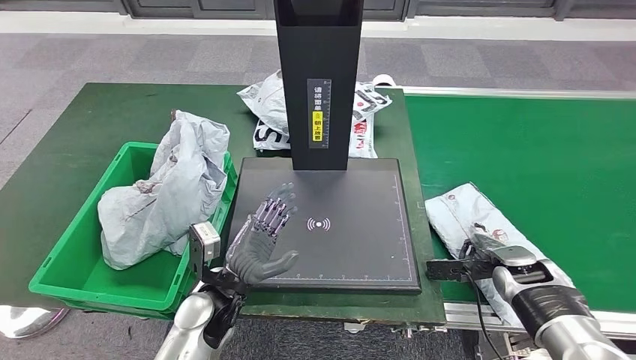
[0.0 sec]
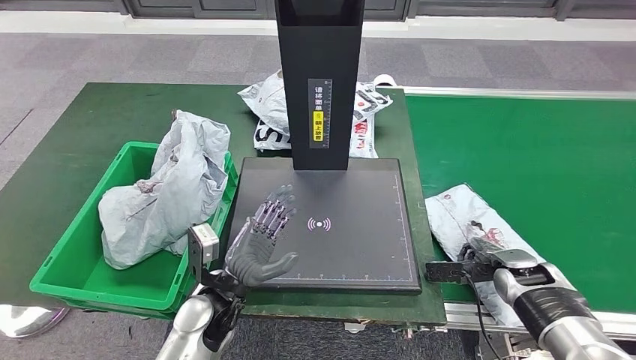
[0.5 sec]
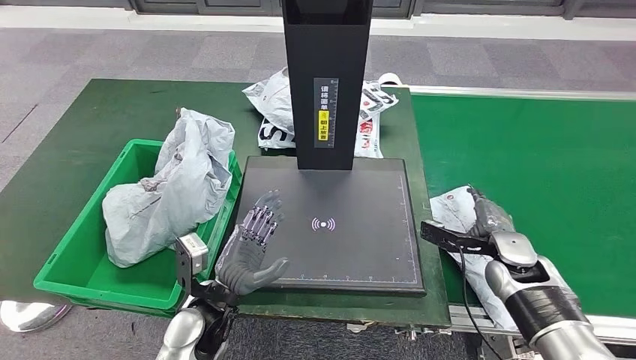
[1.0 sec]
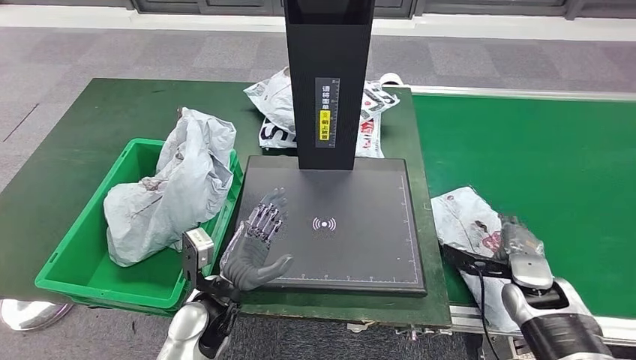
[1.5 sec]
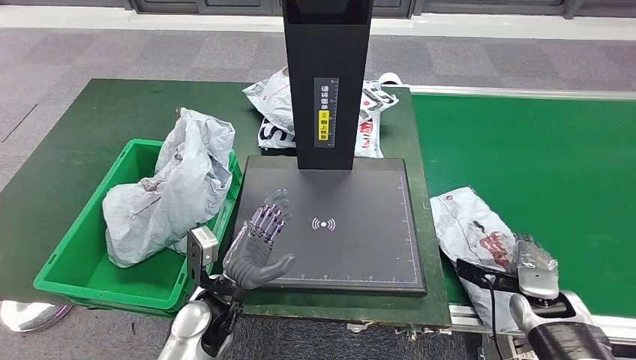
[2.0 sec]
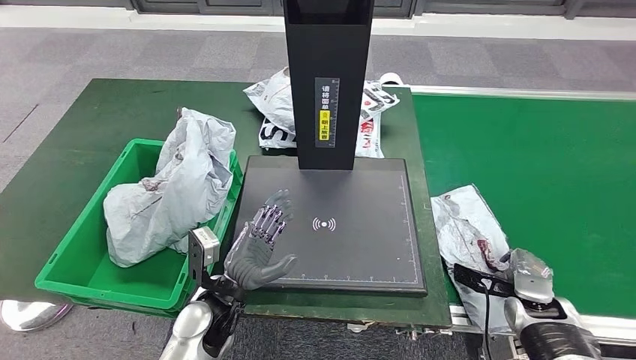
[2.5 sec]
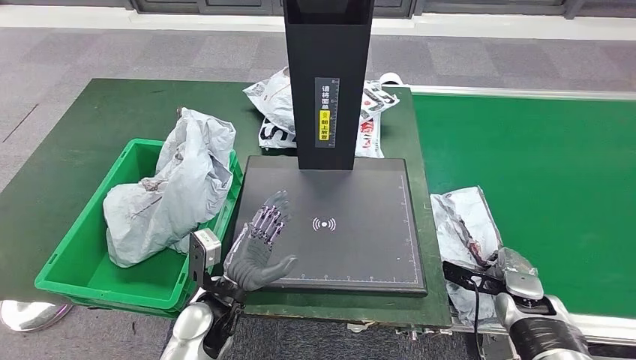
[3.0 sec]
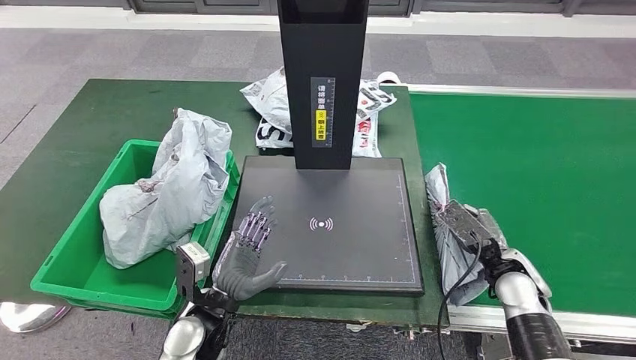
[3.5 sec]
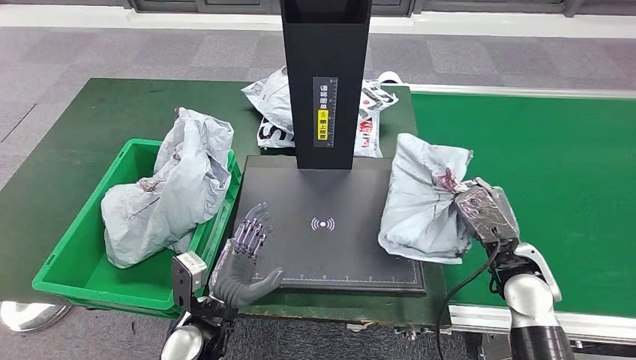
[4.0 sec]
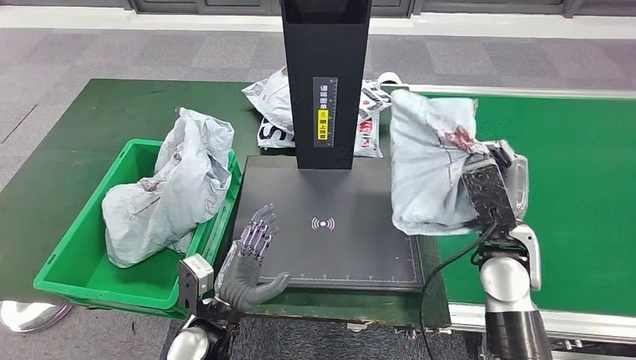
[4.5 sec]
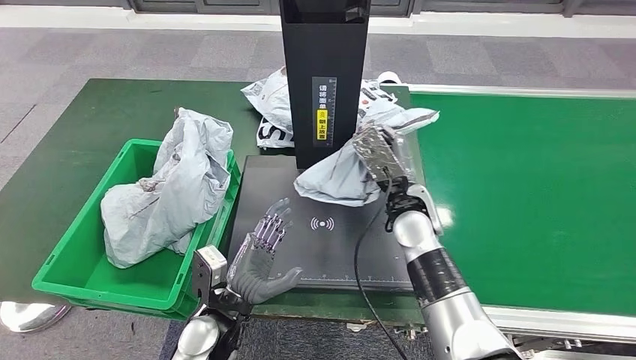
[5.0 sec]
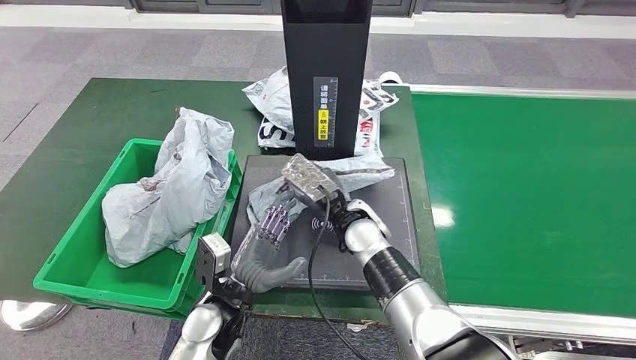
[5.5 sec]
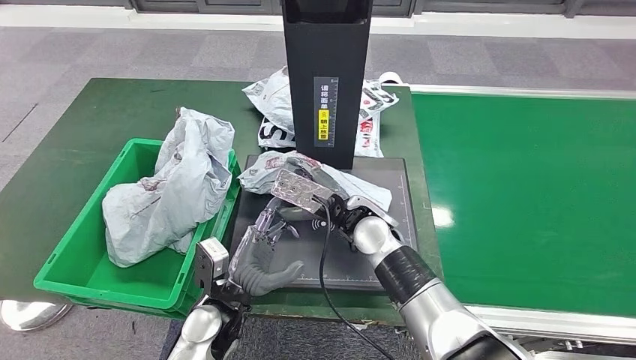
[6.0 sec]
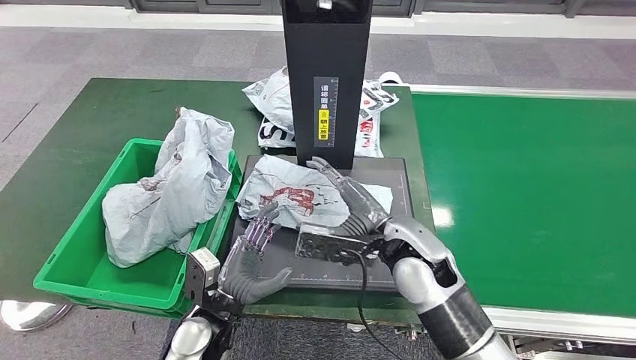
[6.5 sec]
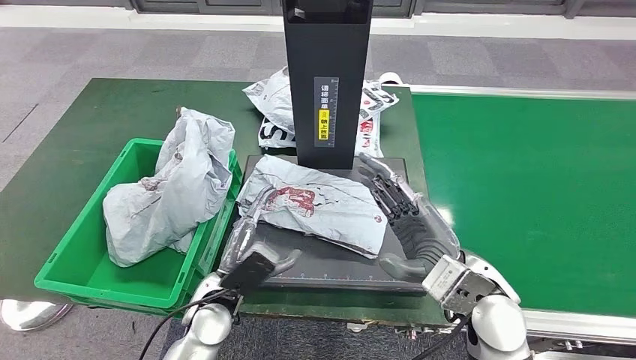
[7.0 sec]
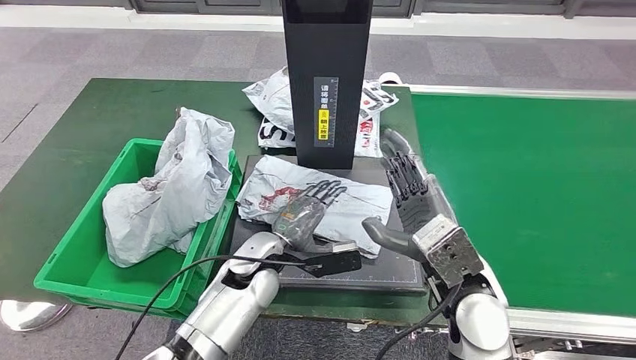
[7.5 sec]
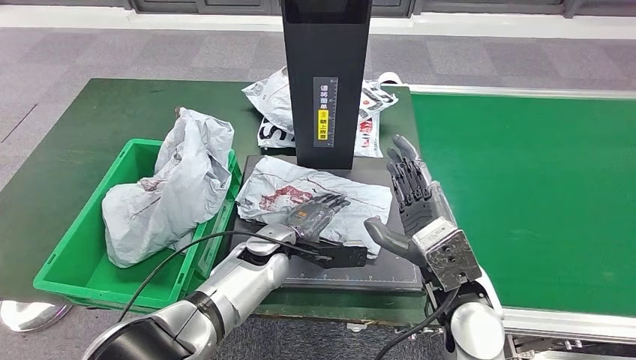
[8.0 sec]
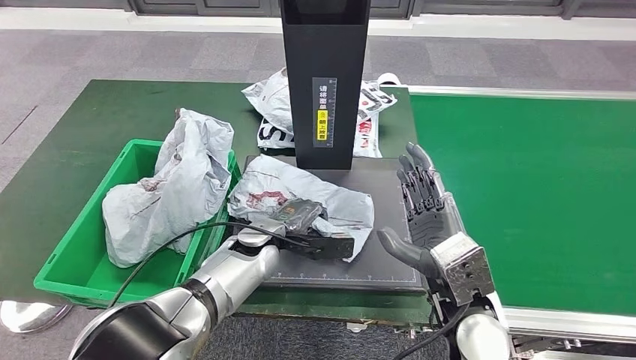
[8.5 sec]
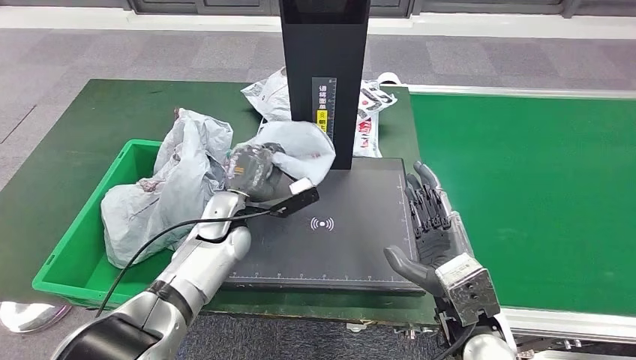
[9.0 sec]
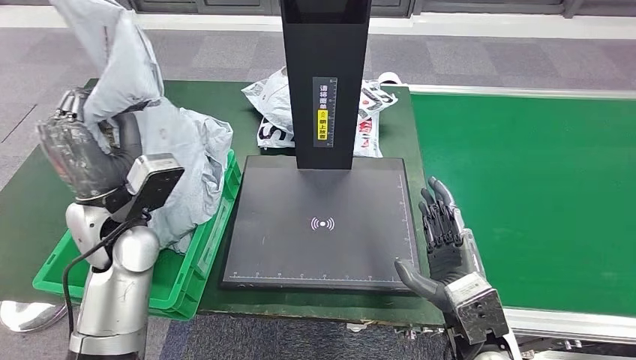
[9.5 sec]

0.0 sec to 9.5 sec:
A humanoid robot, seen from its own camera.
Step, 0.0 sec to 4.0 sec: Pick up the parcel from the conveyor belt.
Step, 4.5 sec to 7.0 sec: Place the parcel onto the inbound machine.
2.0 sec to 4.0 sec: The right hand heads upward and to the left, covering about 10 cm.
4.0 sec to 5.5 sec: The right hand is displaced to the left by roughly 25 cm.
5.5 sec to 7.5 sec: The right hand goes some 15 cm to the right, backward and upward. The left hand heads forward, covering approximately 10 cm.

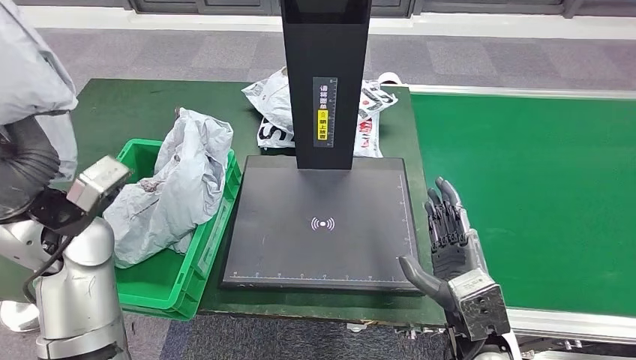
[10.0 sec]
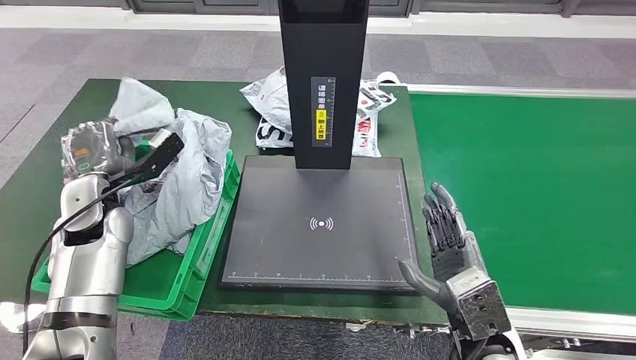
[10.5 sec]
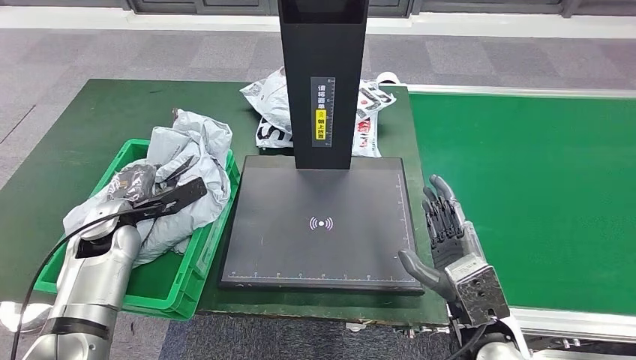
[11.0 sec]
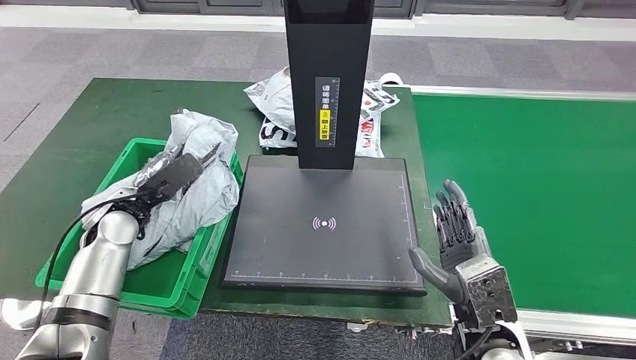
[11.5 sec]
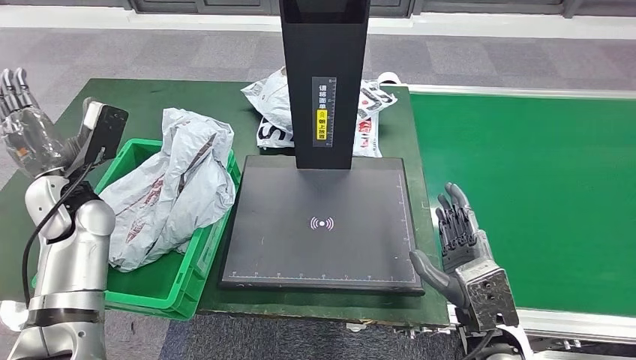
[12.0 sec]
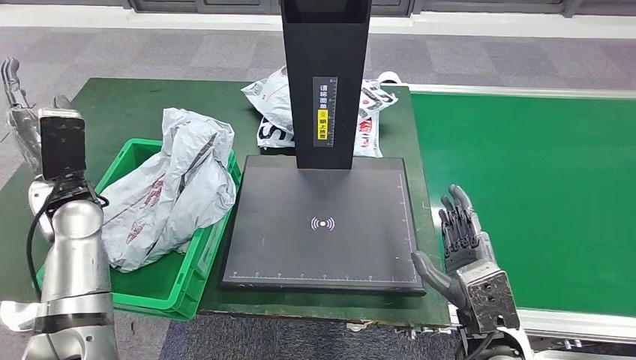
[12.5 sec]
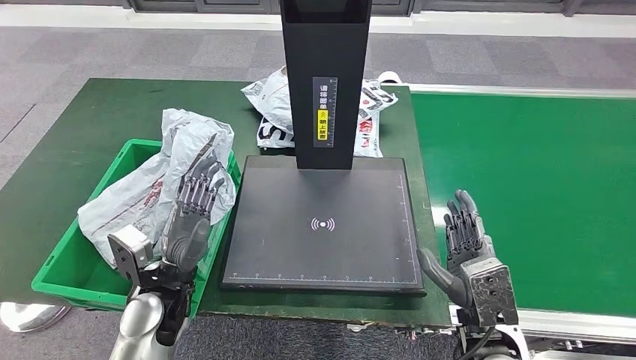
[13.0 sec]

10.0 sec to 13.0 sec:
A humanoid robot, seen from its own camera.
Step, 10.5 sec to 13.0 sec: Place the parcel into the delivery box.
11.5 sec to 13.0 sec: The left hand moves backward and to the right, roughly 15 cm.
